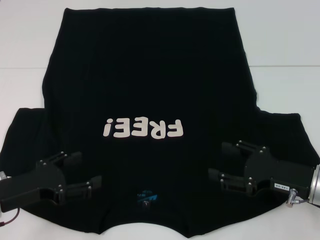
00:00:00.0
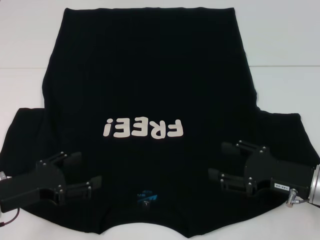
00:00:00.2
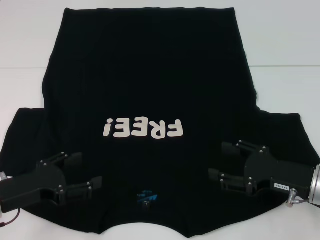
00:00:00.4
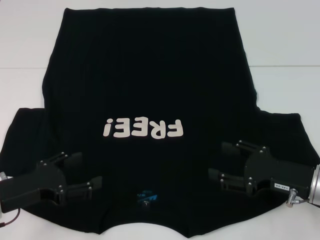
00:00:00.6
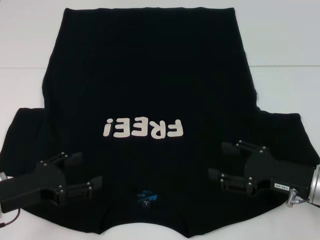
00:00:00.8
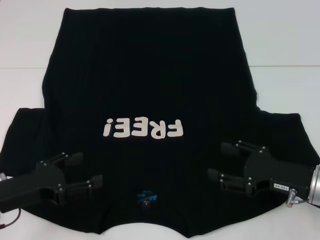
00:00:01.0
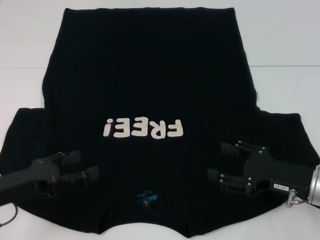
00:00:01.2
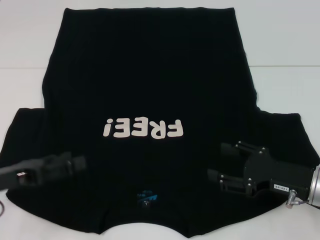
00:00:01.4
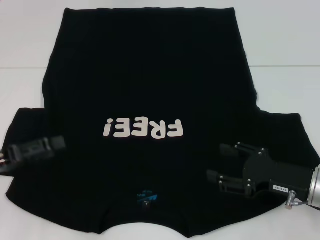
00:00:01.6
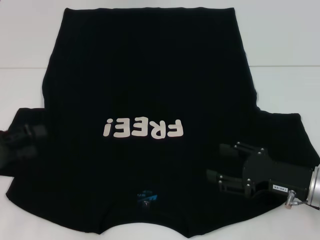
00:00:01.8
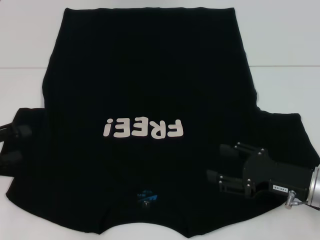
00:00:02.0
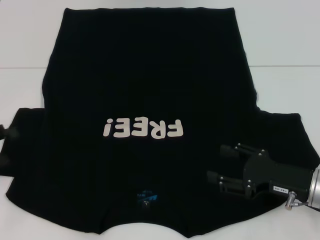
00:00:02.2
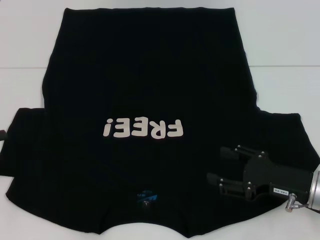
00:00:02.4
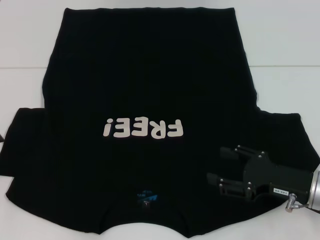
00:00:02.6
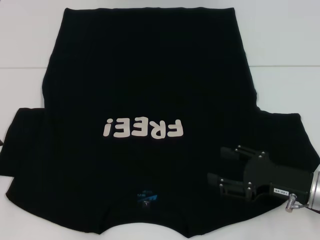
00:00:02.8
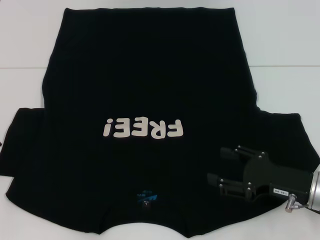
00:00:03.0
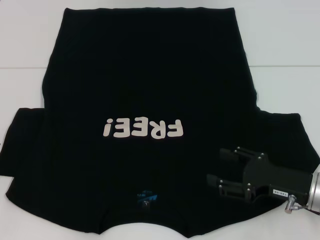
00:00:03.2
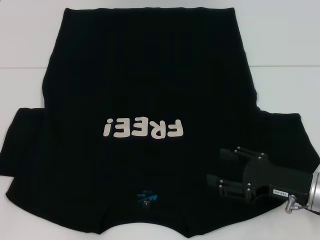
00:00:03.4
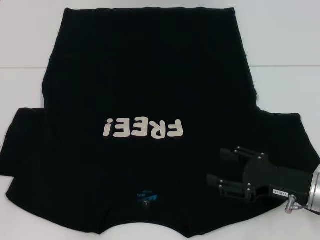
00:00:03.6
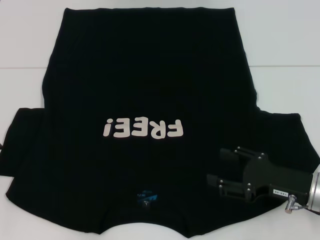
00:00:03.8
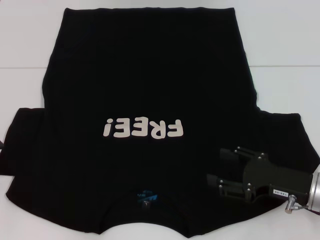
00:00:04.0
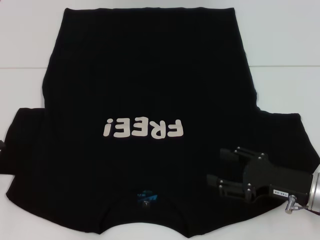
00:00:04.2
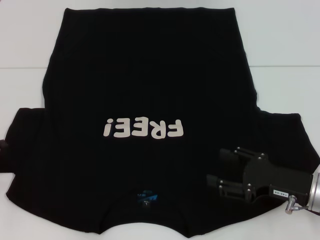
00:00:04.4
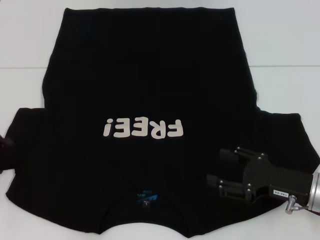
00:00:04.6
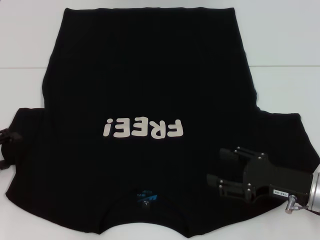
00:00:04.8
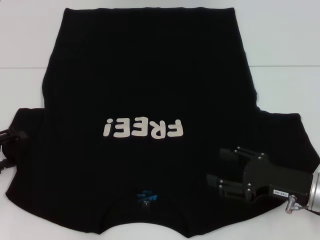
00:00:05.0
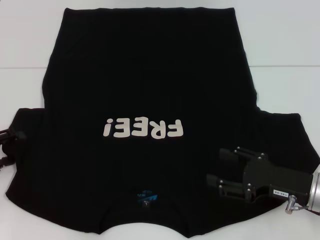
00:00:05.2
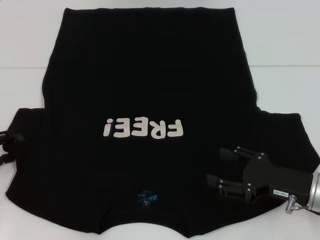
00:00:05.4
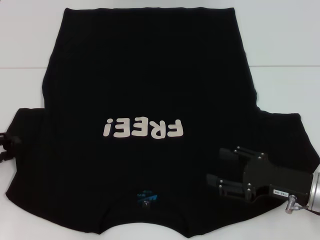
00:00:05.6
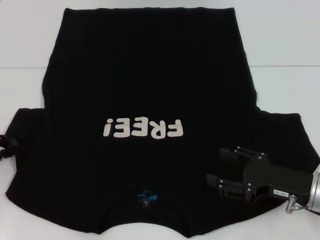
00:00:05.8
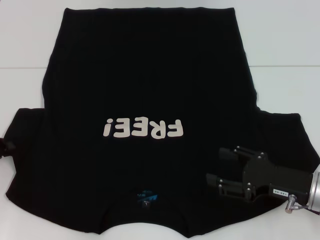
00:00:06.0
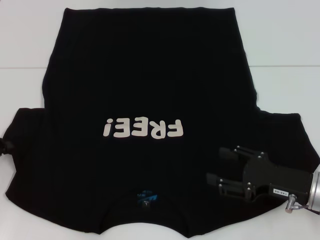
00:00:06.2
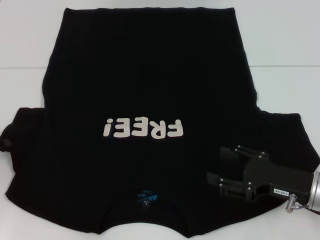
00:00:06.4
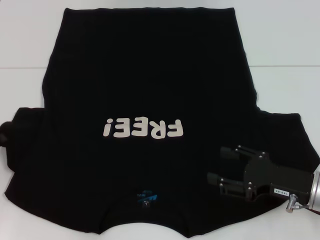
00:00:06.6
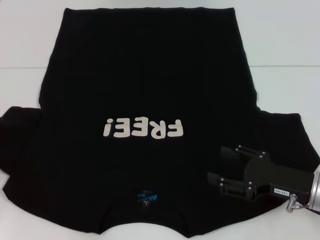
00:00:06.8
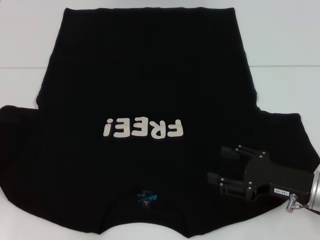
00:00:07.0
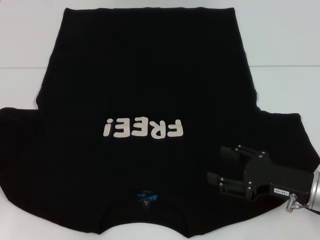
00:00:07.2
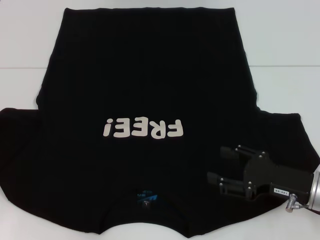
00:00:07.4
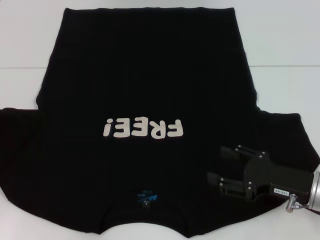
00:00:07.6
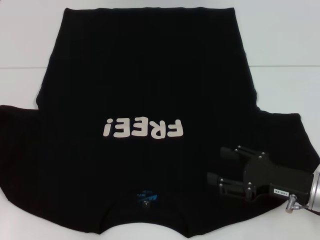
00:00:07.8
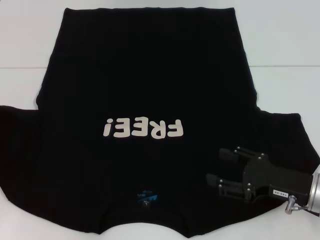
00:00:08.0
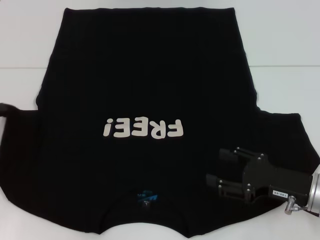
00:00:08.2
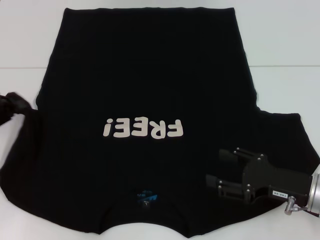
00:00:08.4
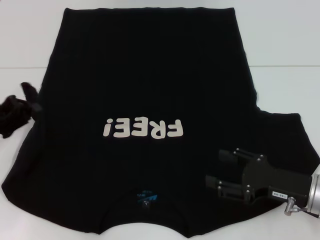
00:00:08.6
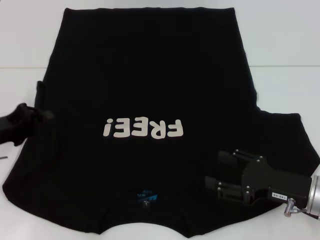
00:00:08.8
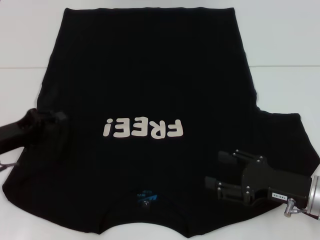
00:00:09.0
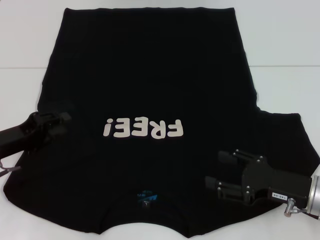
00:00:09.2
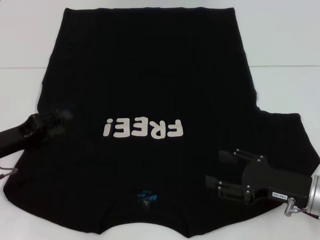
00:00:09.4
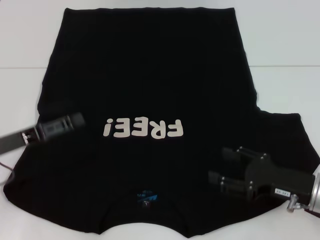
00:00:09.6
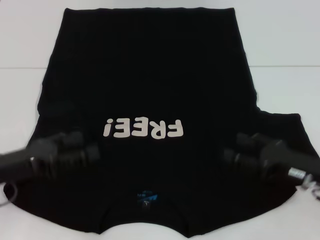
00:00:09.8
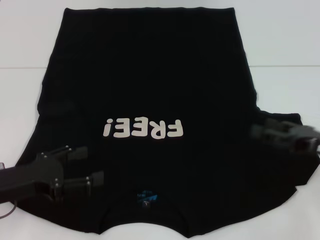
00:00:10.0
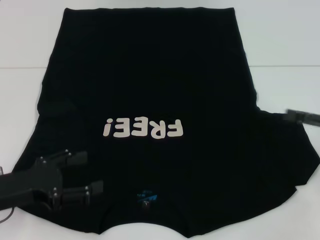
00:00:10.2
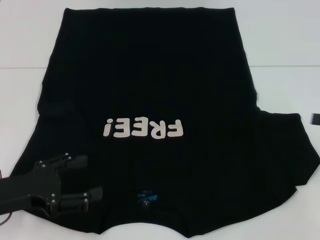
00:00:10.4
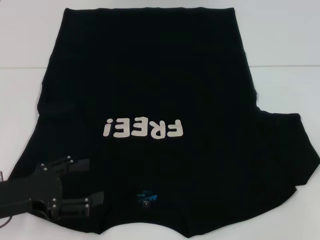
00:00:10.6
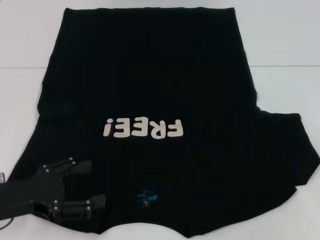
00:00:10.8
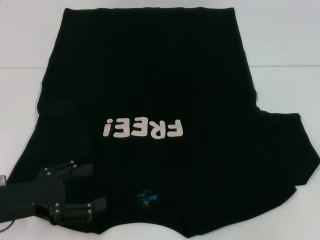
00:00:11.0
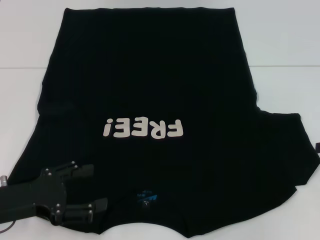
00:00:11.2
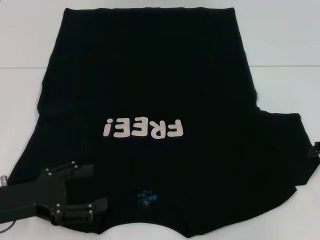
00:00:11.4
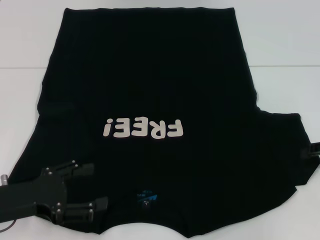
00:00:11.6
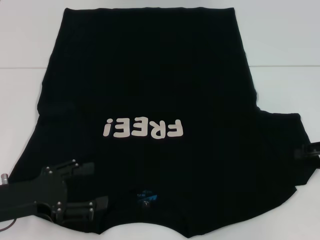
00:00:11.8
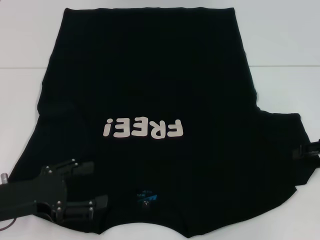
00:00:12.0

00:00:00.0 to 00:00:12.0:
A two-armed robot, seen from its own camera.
Step, 00:00:00.0 to 00:00:09.4: Fold the bottom left sleeve with your left hand.
00:00:00.0 to 00:00:01.6: The left gripper heads to the left, covering roughly 5 cm.
00:00:01.6 to 00:00:03.0: The left gripper is displaced to the left by some 5 cm.
00:00:03.0 to 00:00:04.4: Both grippers stay put.
00:00:06.0 to 00:00:07.6: The left gripper closes up.
00:00:07.6 to 00:00:09.0: The left gripper heads to the right, covering approximately 10 cm.
00:00:09.0 to 00:00:10.4: The right gripper is displaced to the right and upward by about 15 cm. Meanwhile the left gripper is displaced backward by roughly 10 cm, and opens.

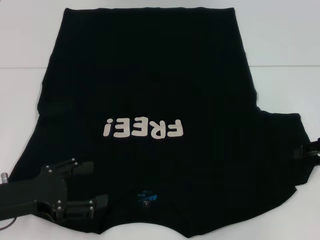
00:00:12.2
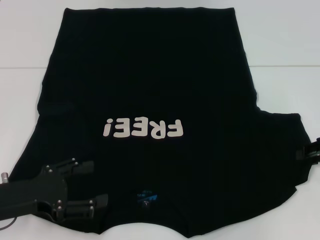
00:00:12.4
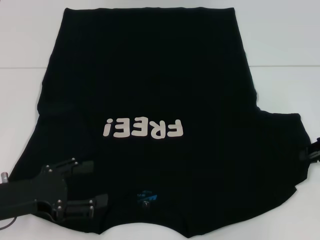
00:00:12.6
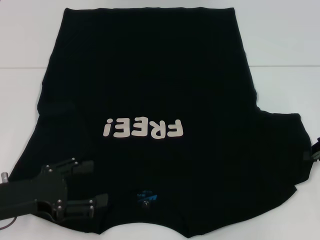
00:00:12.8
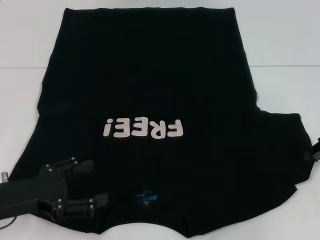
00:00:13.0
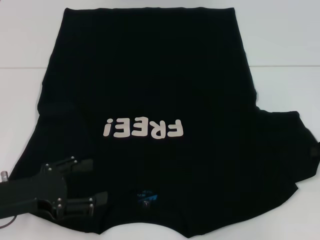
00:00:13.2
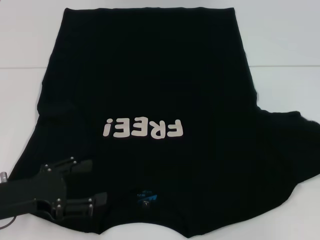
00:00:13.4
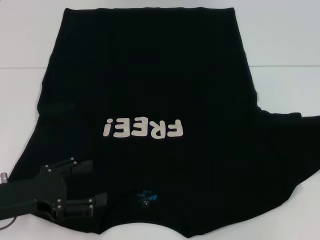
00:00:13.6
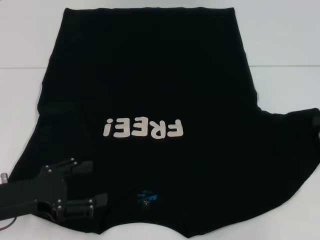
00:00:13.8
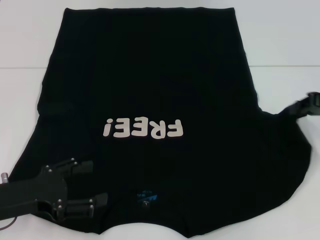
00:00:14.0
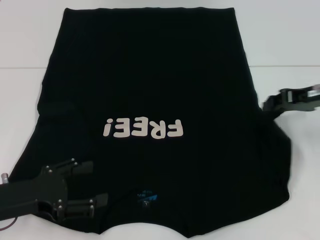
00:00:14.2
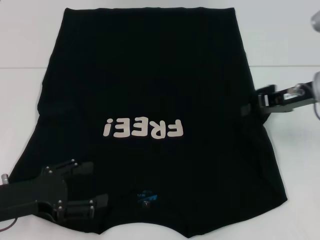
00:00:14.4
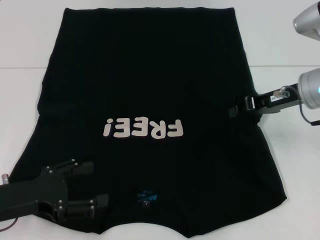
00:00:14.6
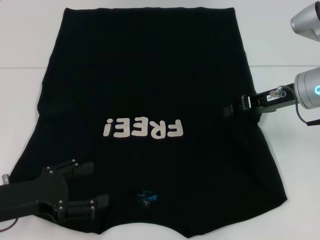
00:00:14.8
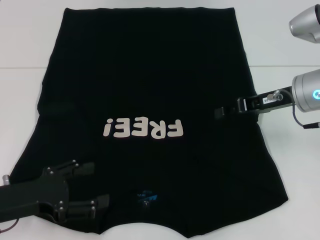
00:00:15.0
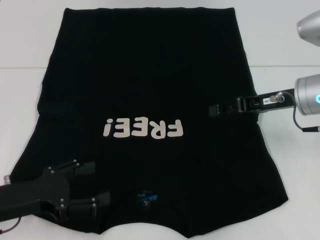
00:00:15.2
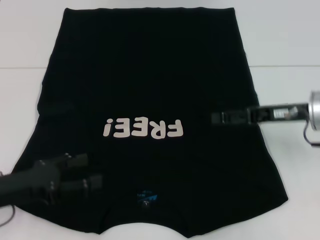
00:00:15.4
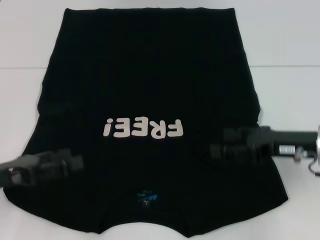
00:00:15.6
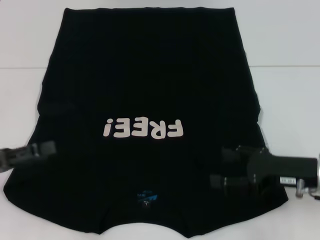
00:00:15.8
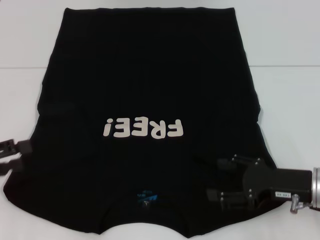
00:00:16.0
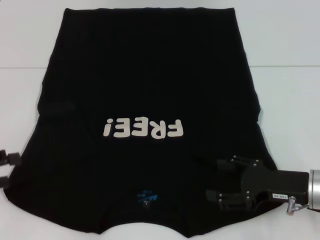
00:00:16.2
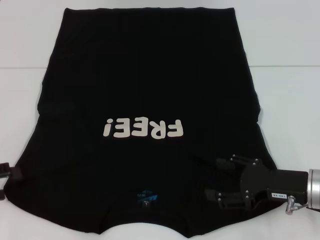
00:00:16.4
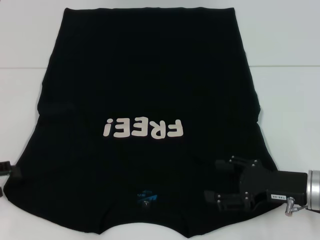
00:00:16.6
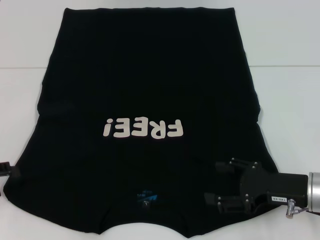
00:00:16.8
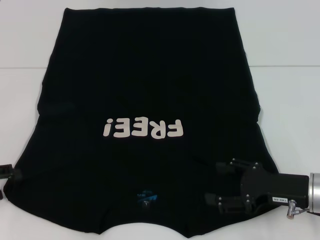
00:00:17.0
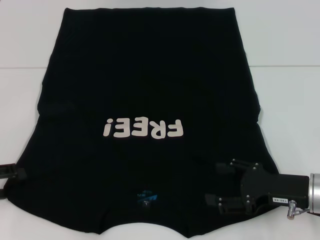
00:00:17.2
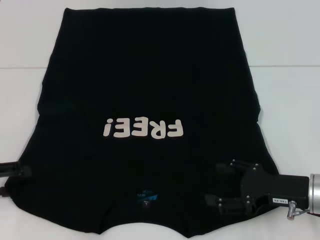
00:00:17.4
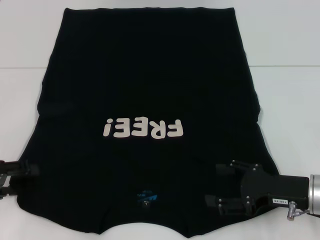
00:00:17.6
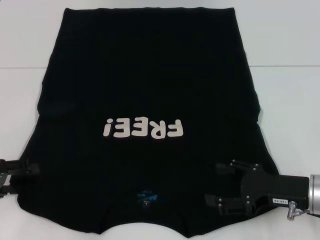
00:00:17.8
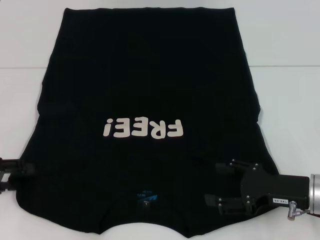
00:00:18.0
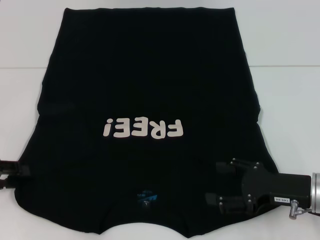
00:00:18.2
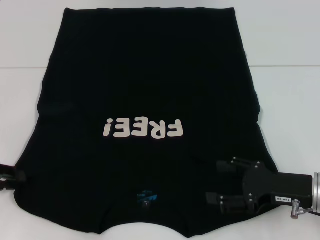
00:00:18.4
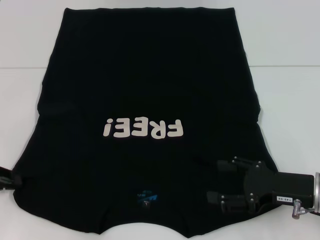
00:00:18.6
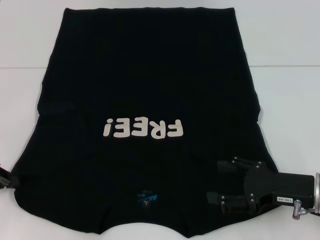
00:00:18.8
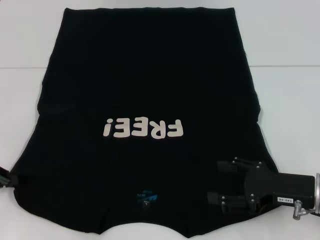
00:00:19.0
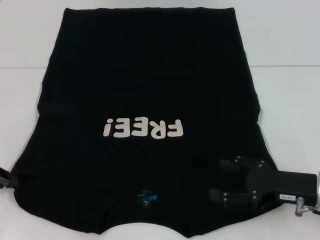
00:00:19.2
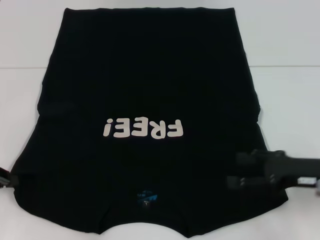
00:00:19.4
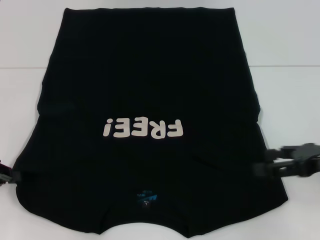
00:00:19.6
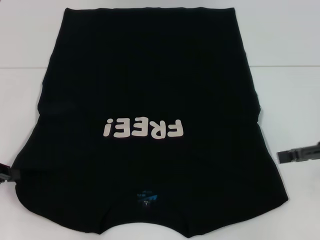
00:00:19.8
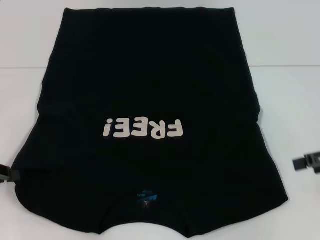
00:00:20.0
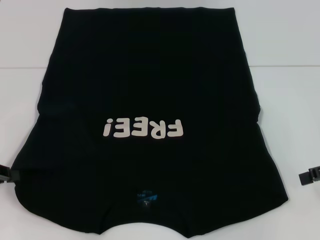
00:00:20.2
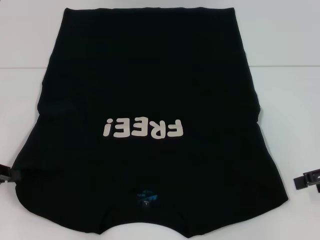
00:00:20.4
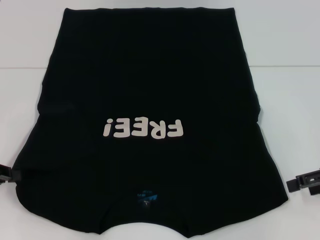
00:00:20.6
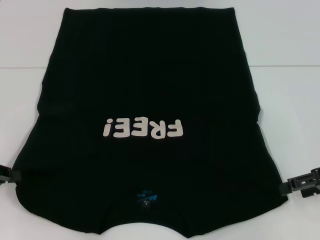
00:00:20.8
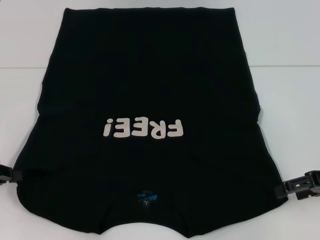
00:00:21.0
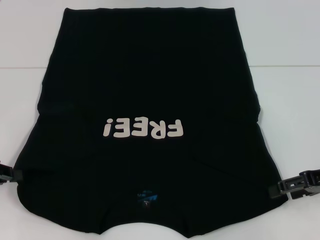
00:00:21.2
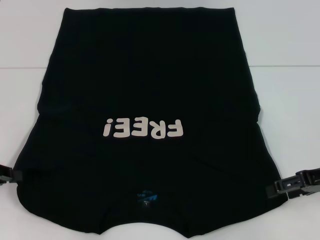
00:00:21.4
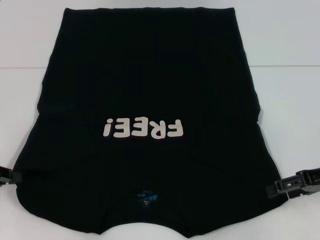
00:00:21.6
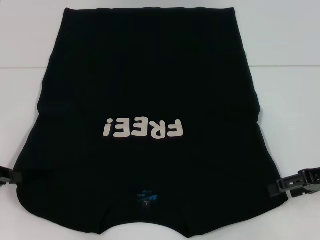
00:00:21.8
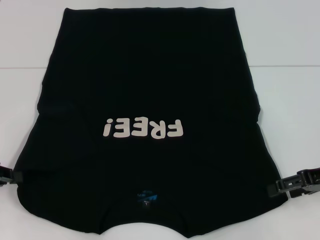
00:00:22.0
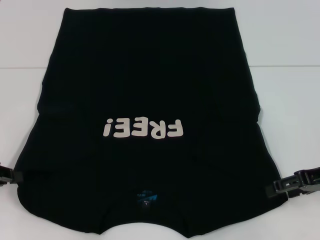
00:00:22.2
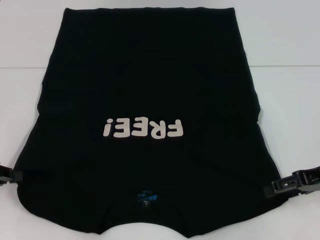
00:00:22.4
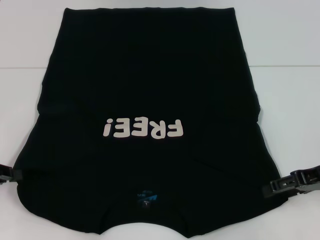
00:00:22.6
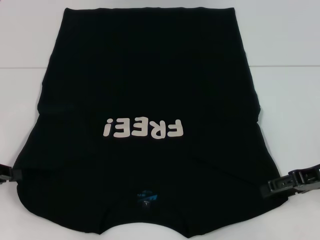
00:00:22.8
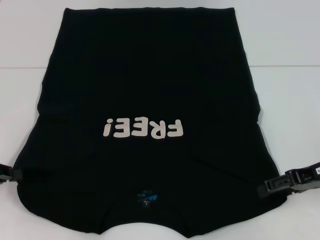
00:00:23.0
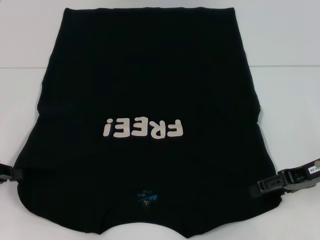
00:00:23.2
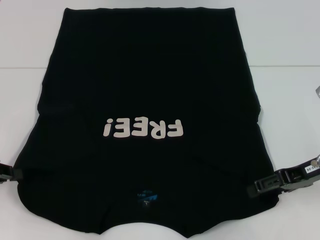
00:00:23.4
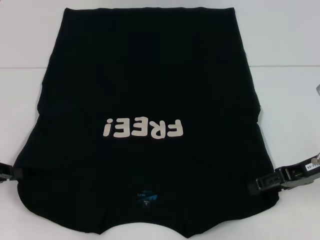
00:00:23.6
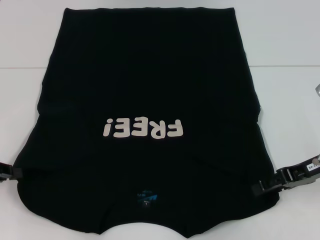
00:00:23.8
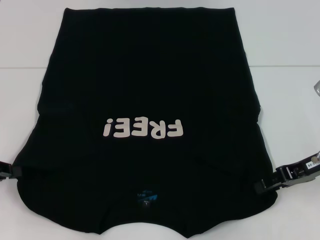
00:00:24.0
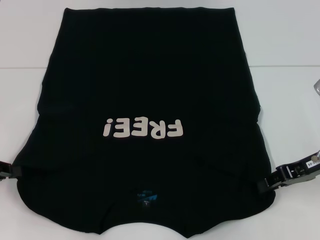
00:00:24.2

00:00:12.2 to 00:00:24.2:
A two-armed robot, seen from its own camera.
Step, 00:00:12.2 to 00:00:15.2: Fold the bottom right sleeve with your right hand.
Step, 00:00:15.4 to 00:00:18.8: Grab the bottom left corner with your left hand.
00:00:12.2 to 00:00:13.8: The right gripper closes up.
00:00:13.8 to 00:00:15.2: The right gripper travels to the left by some 15 cm, and opens.
00:00:15.2 to 00:00:16.6: The right gripper is displaced backward and downward by some 15 cm, and opens, while the left gripper shifts some 10 cm to the left.
00:00:16.6 to 00:00:18.2: The grippers stay close to where they were, moving slightly.
00:00:18.2 to 00:00:19.8: The left gripper closes up. Meanwhile the right gripper is displaced upward and to the right by roughly 15 cm.
00:00:19.8 to 00:00:21.2: The right gripper moves downward, about 5 cm.
00:00:22.6 to 00:00:24.2: The grippers move only a little.
